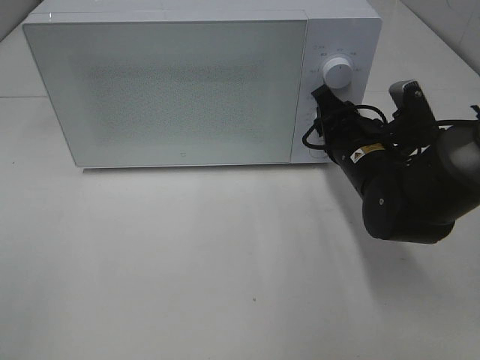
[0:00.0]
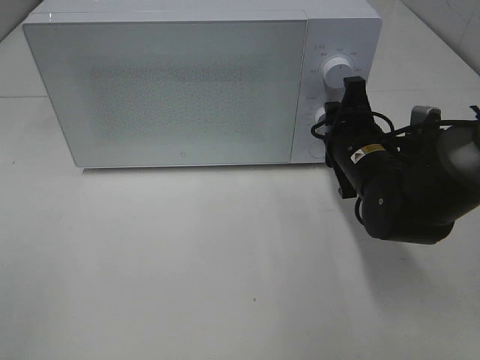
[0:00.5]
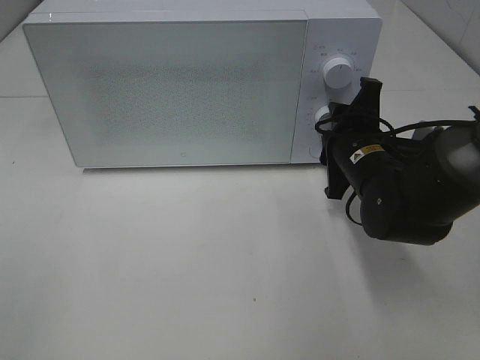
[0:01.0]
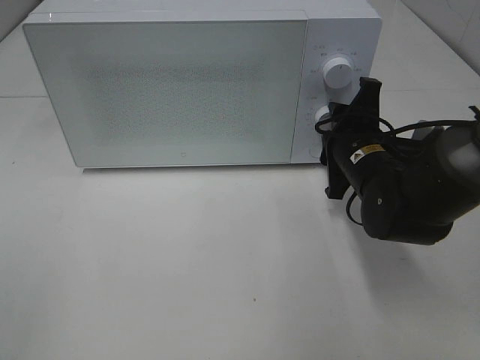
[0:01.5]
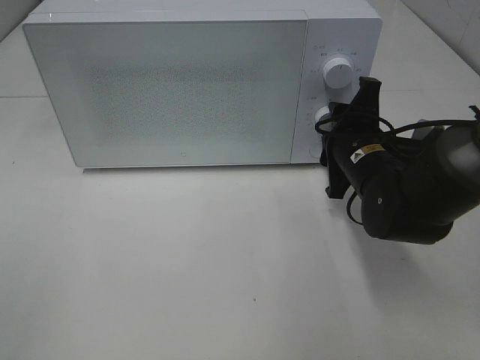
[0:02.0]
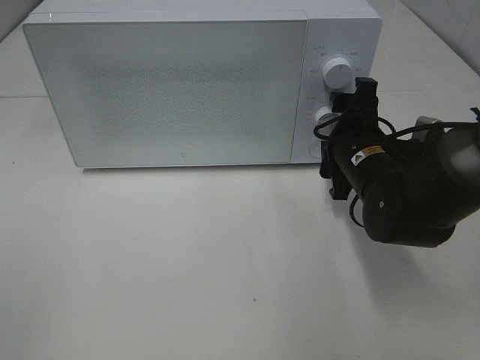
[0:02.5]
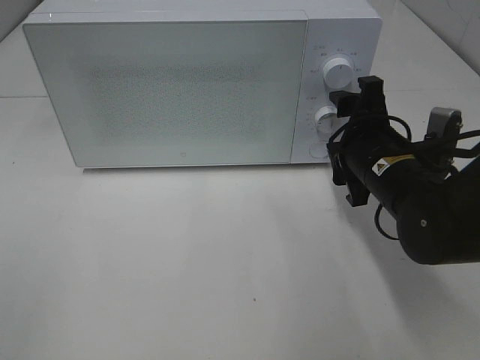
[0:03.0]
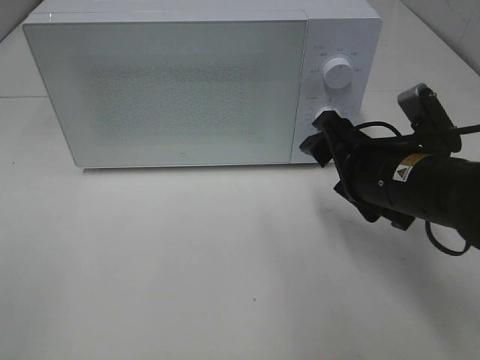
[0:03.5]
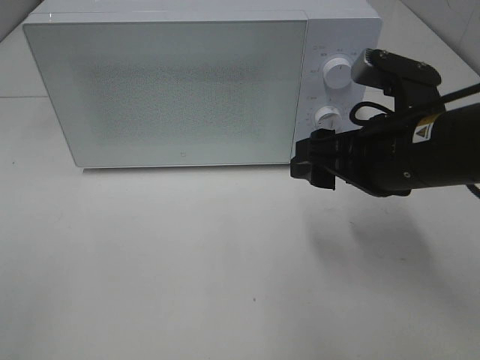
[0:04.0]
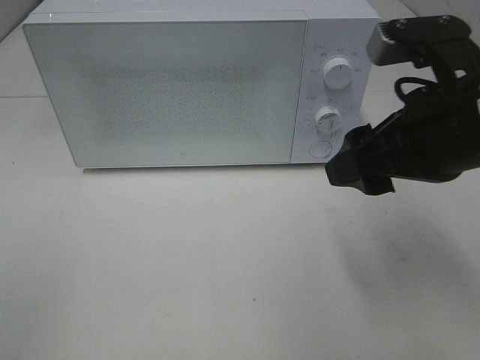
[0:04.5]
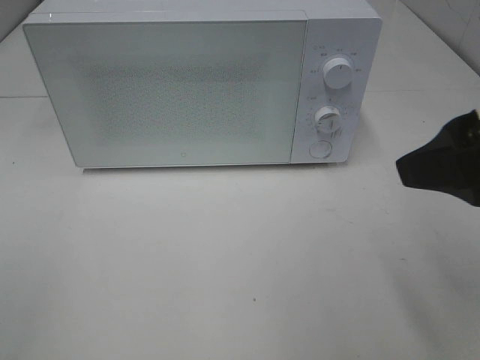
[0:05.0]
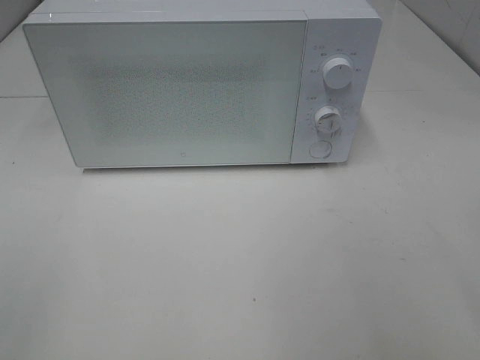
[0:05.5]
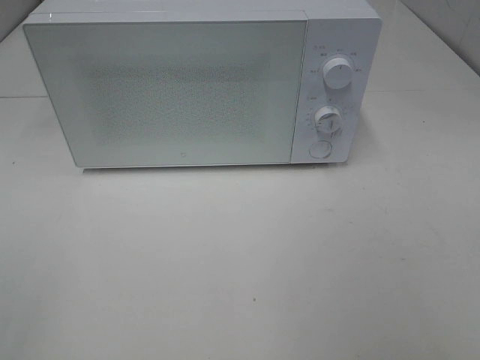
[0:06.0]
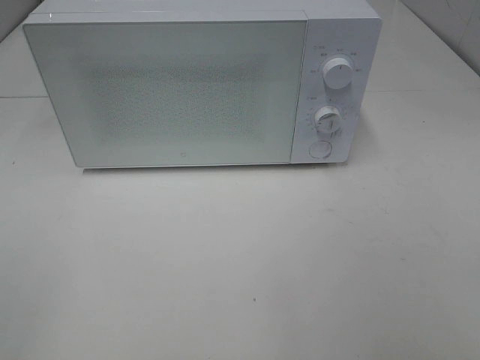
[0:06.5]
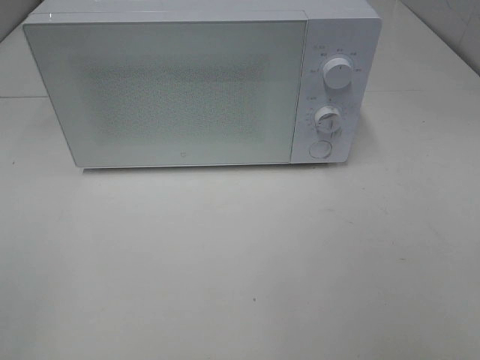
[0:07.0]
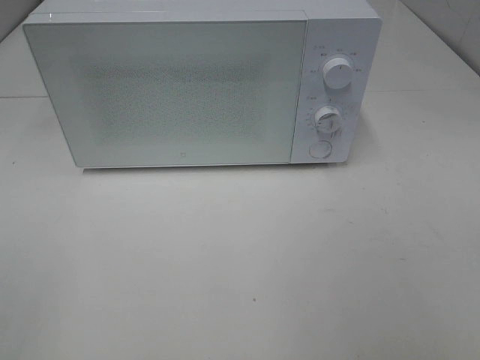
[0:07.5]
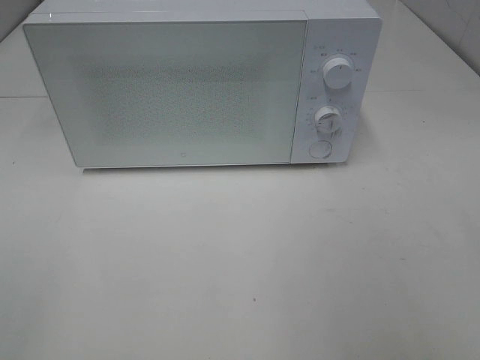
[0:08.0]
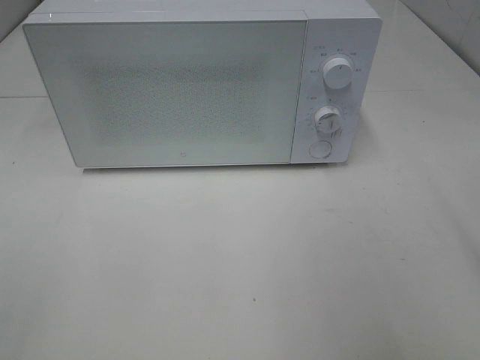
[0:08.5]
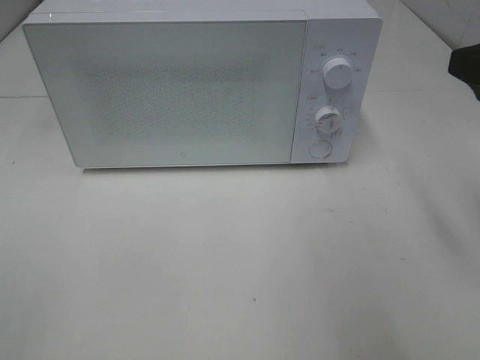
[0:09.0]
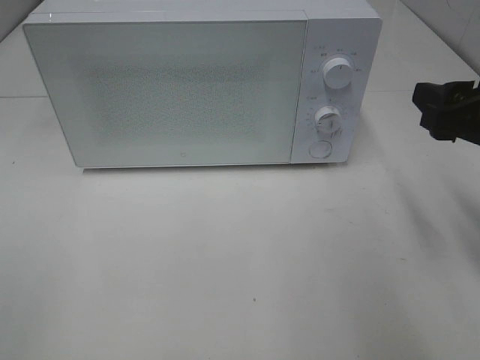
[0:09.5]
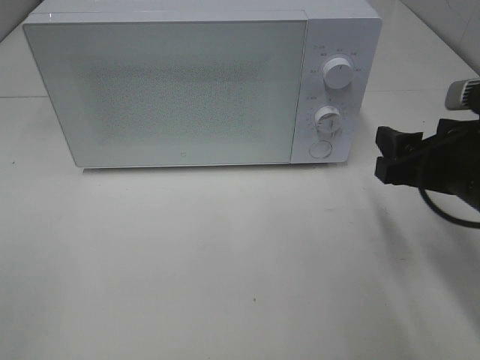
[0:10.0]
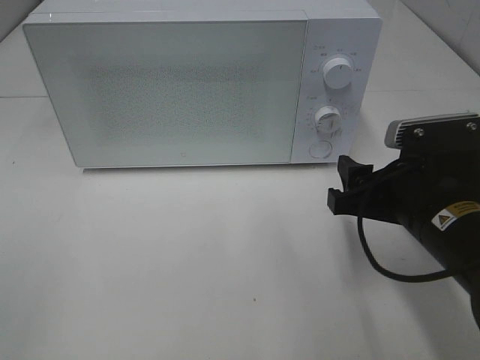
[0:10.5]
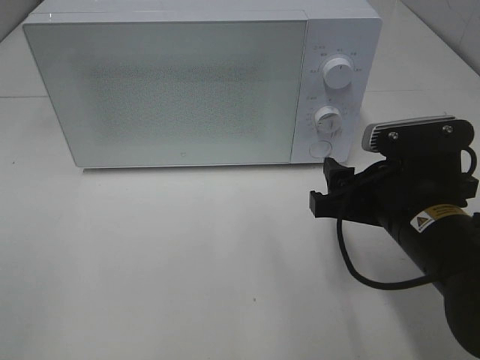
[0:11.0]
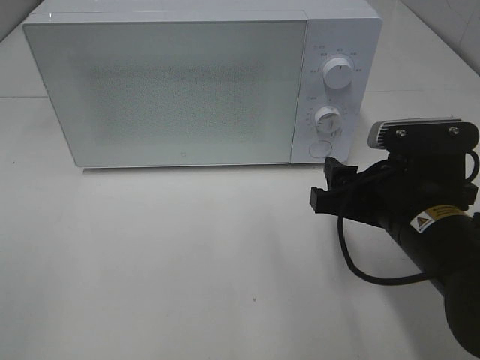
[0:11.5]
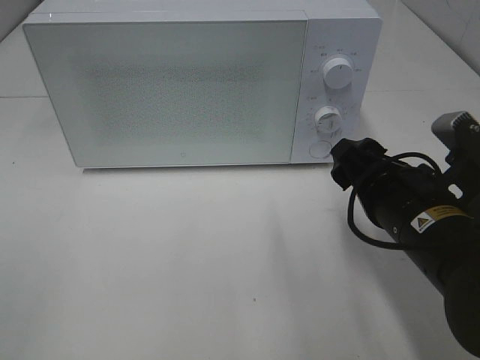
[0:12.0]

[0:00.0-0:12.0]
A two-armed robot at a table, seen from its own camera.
Task of the whole recording: Heat Sandwich.
Step, 0:00.0 to 0:02.5: Right hand: twist timer button.
0:02.0 to 0:04.0: The right gripper goes about 10 cm upward and backward.
0:04.0 to 0:06.0: The right gripper travels backward, to the right and upward by about 30 cm.
0:08.0 to 0:10.0: The right gripper travels downward and forward by about 20 cm.
0:10.0 to 0:12.0: The right gripper is displaced to the left by approximately 5 cm.

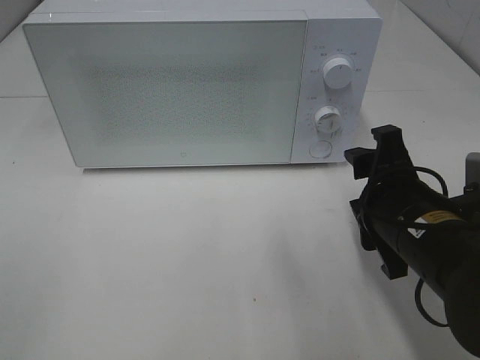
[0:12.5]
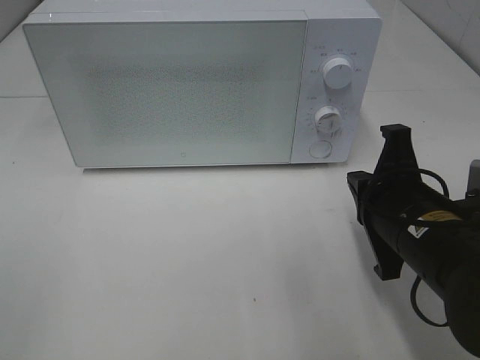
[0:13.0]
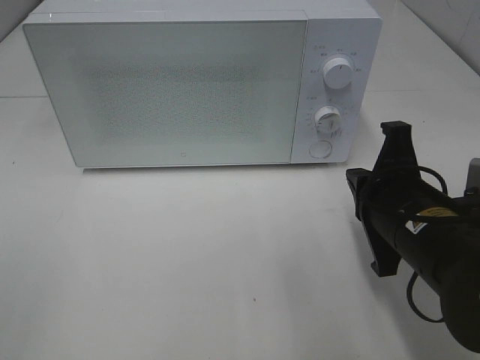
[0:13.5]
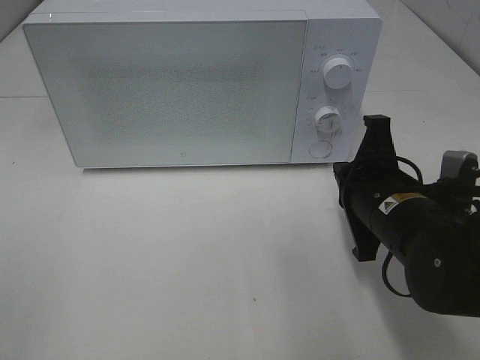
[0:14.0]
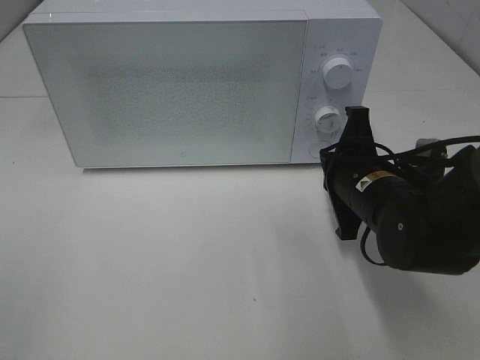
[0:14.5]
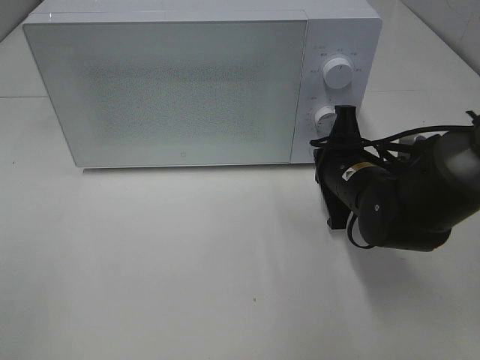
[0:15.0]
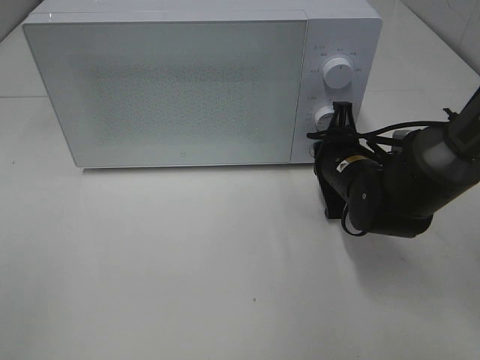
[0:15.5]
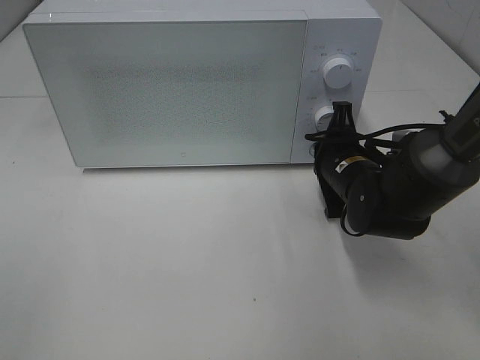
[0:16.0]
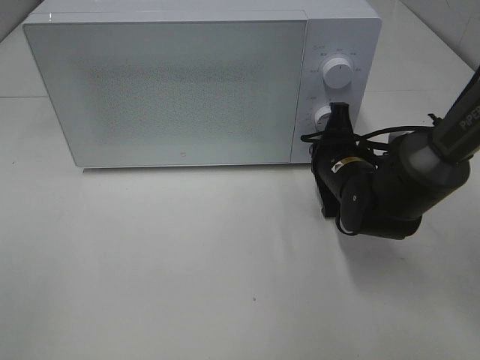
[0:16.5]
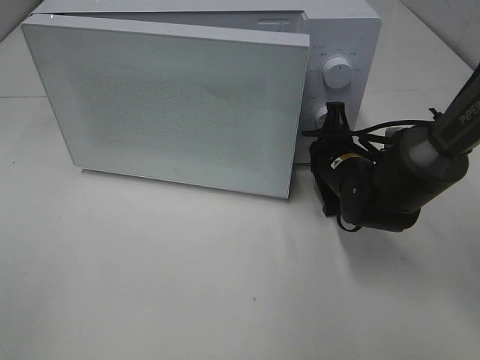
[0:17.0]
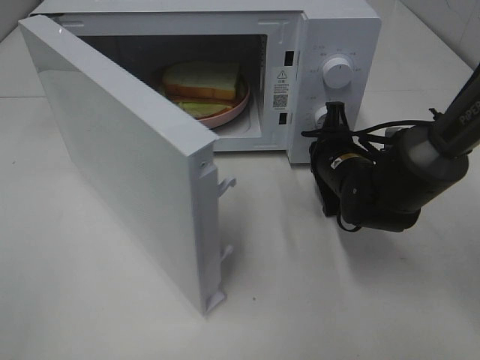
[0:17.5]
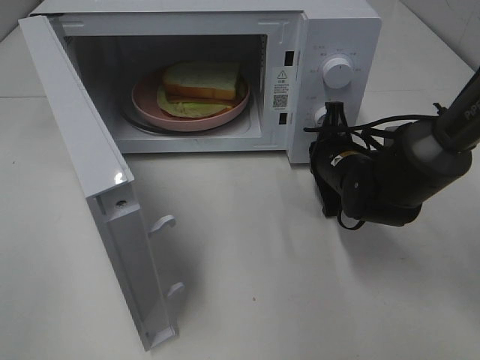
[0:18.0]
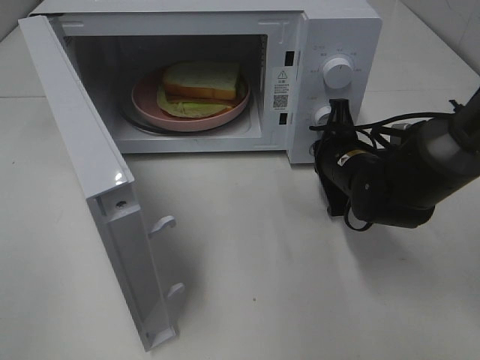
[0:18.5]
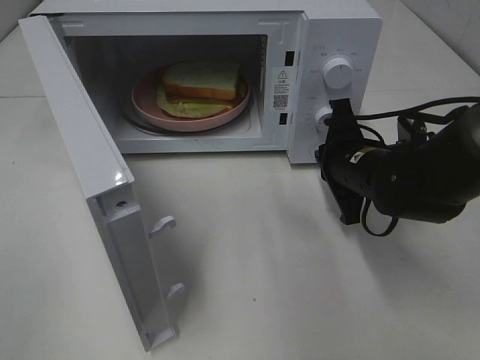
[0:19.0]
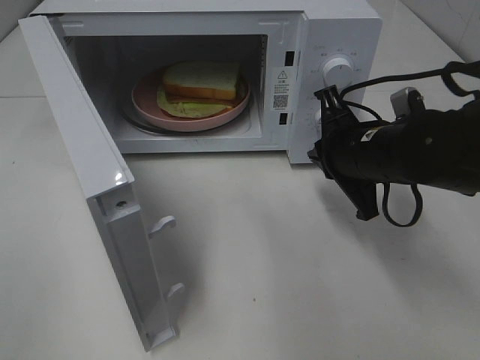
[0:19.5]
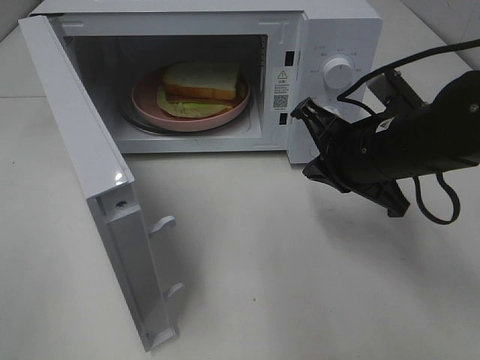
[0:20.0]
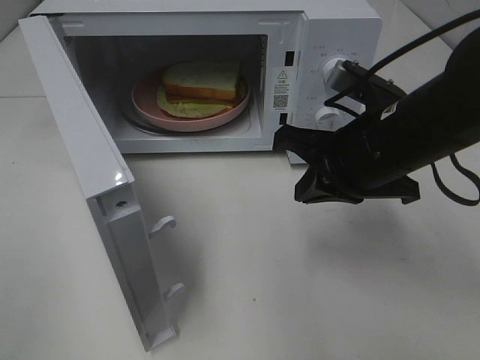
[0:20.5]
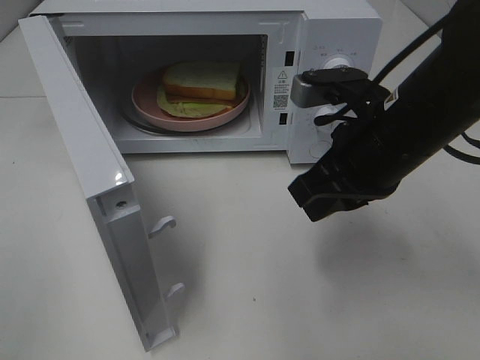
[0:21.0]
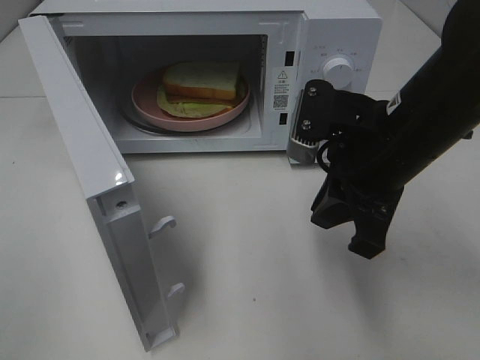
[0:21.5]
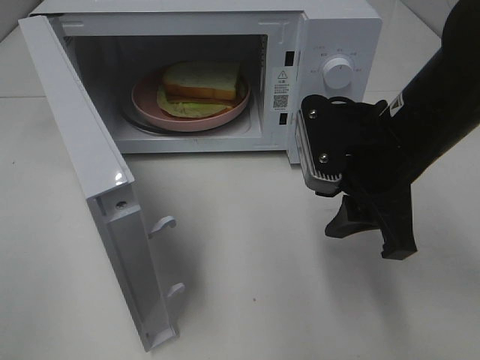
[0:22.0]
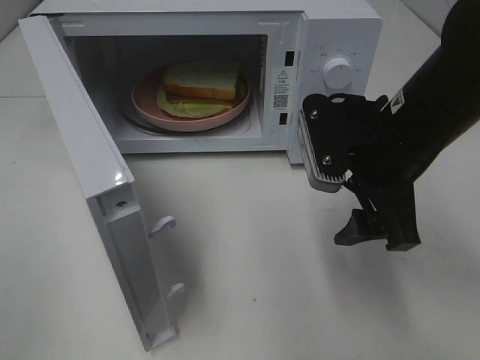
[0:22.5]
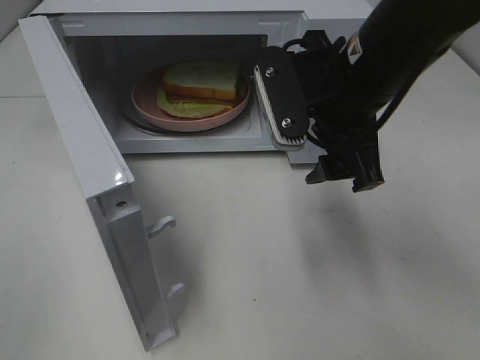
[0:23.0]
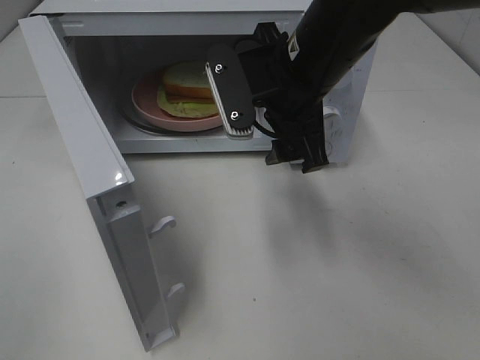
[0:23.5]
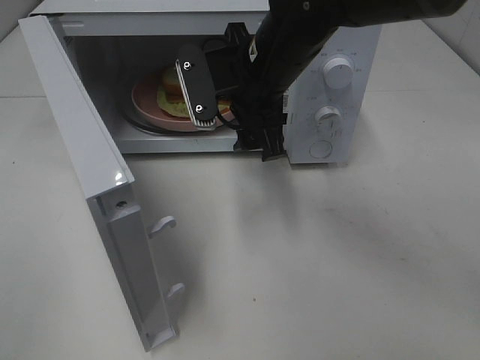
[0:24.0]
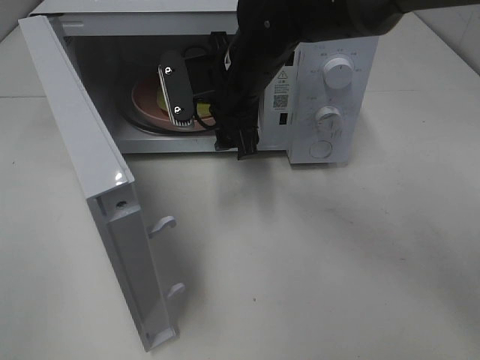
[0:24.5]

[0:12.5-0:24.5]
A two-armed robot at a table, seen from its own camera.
Task of the whole recording: Heat Sandwich.
Step, 0:12.5 to 0:18.5: Right hand: press the switch.
0:12.5 to 0:14.5: The right gripper travels forward by about 10 cm, and closes up.
0:14.5 to 0:16.5: The right gripper is displaced forward by about 5 cm.
0:18.5 to 0:20.5: The right gripper heads upward and backward, covering about 15 cm.
0:20.5 to 0:22.5: The right gripper opens its fingers.
0:22.5 to 0:24.5: The right gripper shifts some 20 cm to the left and forward.

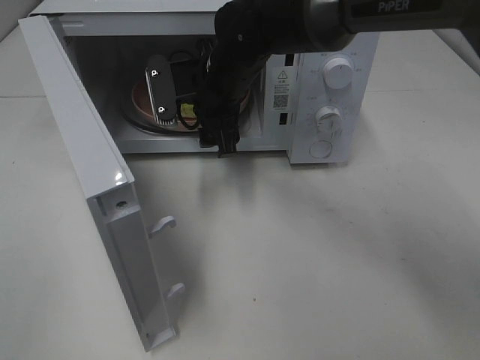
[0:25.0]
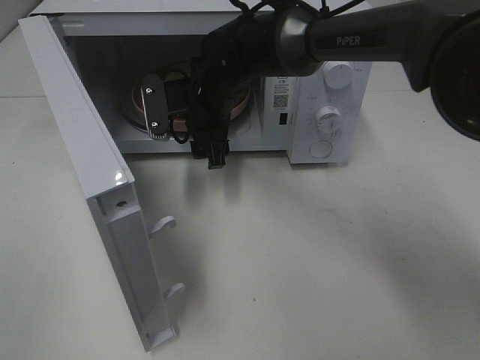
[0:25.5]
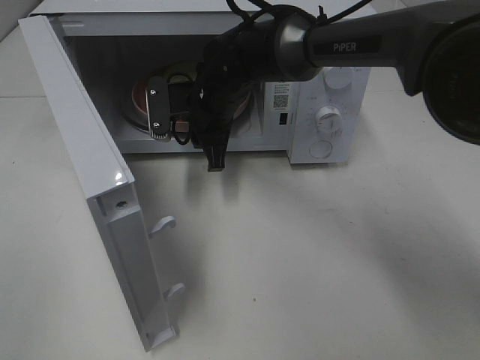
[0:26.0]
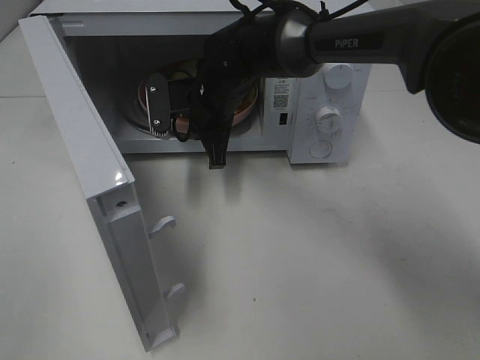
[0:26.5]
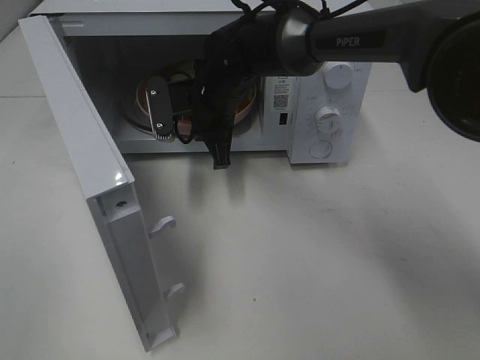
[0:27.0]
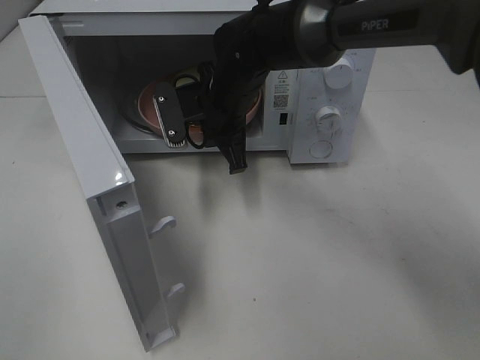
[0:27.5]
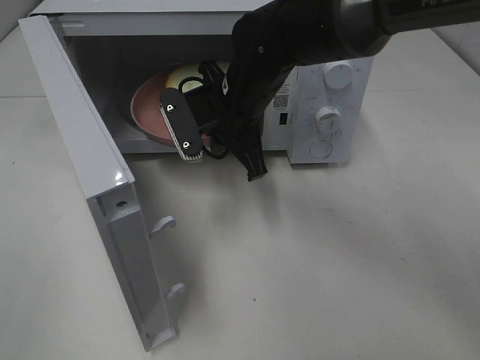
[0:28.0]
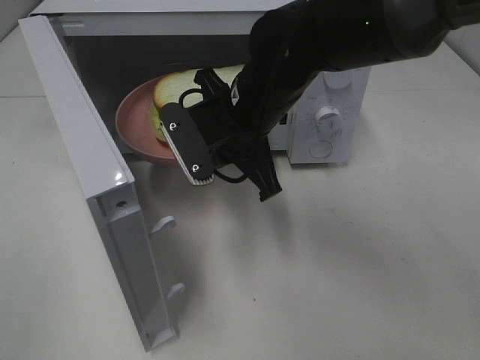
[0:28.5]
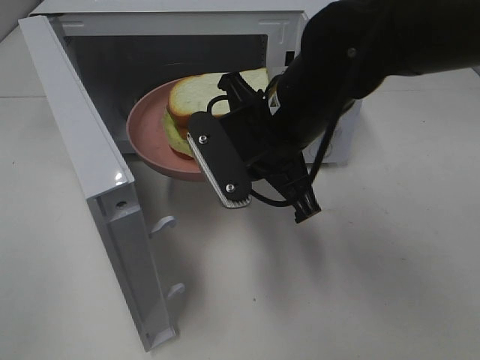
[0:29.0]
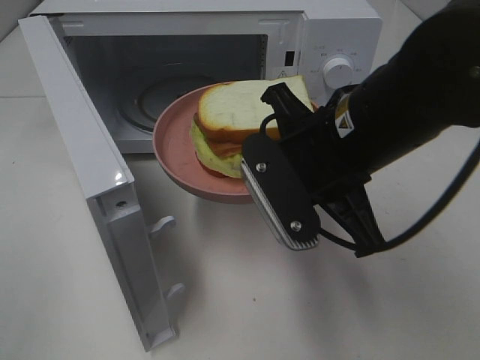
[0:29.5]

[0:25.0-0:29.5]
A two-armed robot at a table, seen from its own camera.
Task of the whole recording: Heat Sandwich.
0:25.0 to 0:27.0: The right gripper closes its fingers.
0:27.0 to 0:29.5: The right gripper goes some 25 cm backward and to the right.
